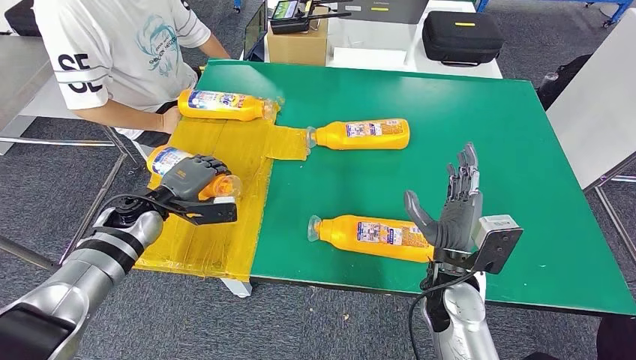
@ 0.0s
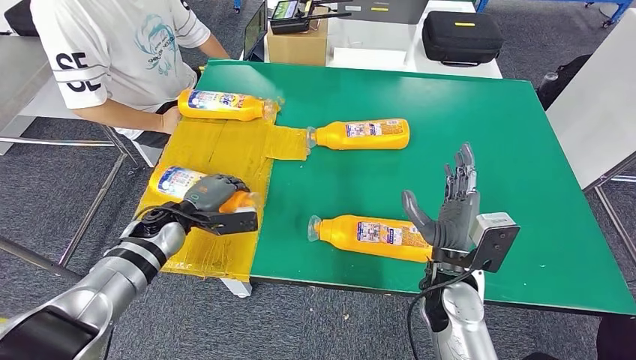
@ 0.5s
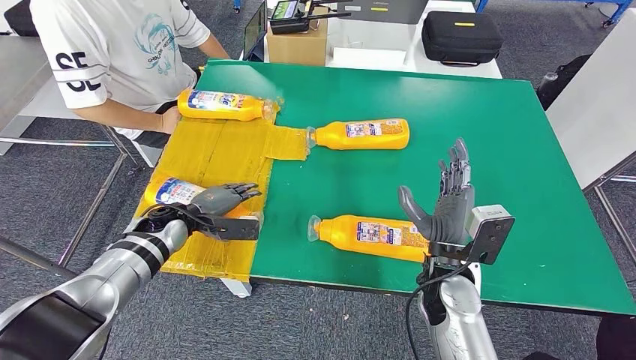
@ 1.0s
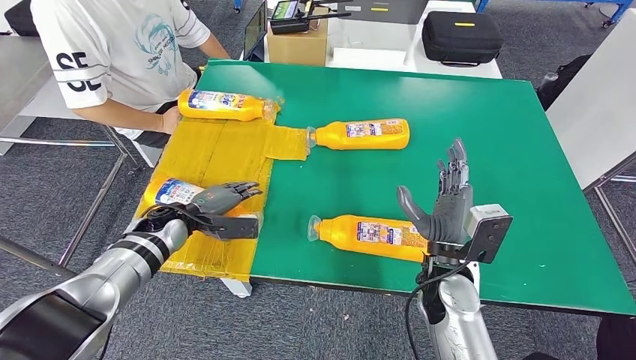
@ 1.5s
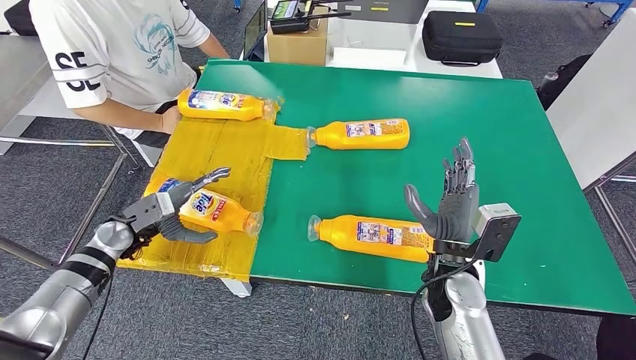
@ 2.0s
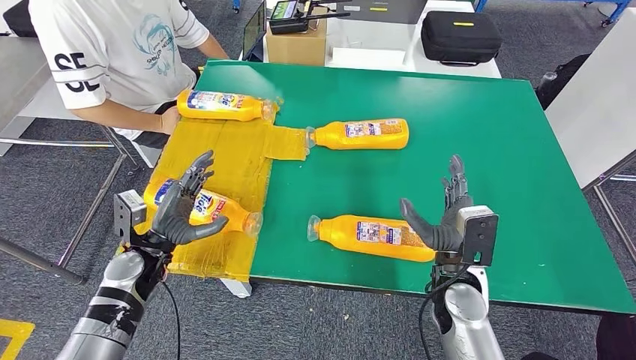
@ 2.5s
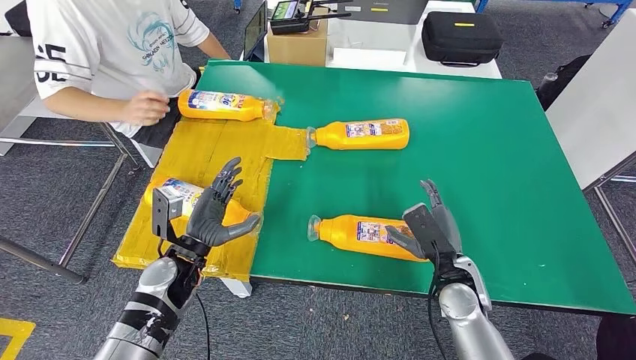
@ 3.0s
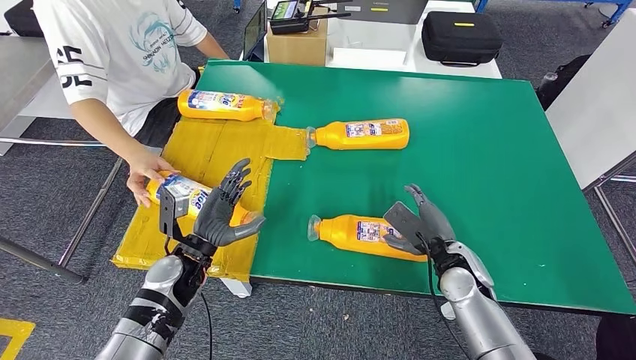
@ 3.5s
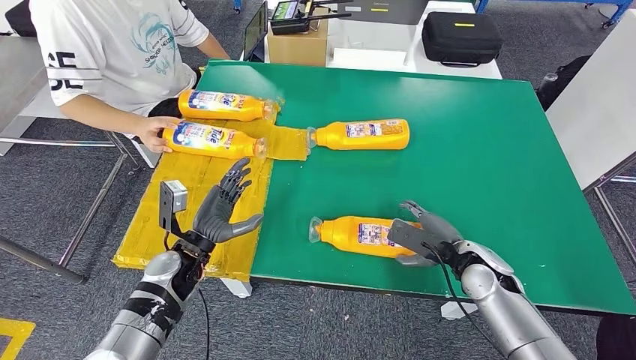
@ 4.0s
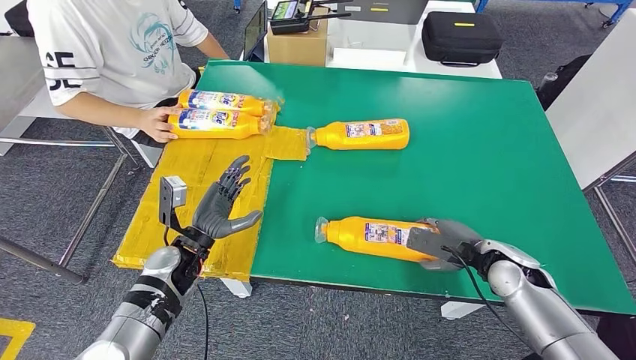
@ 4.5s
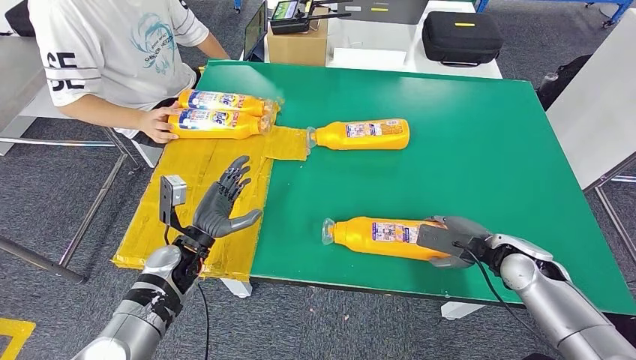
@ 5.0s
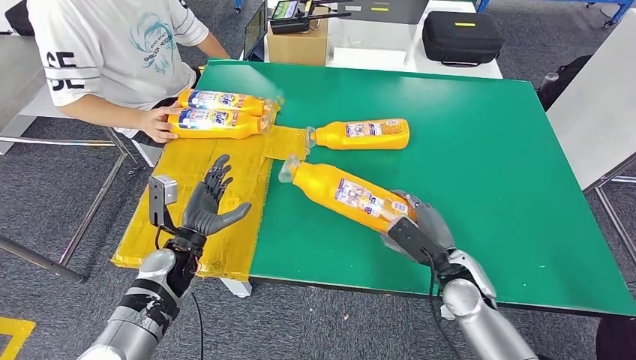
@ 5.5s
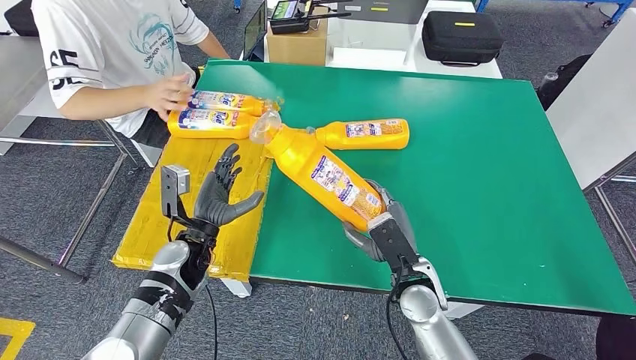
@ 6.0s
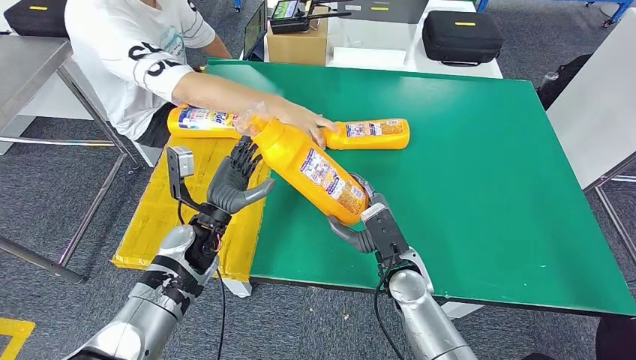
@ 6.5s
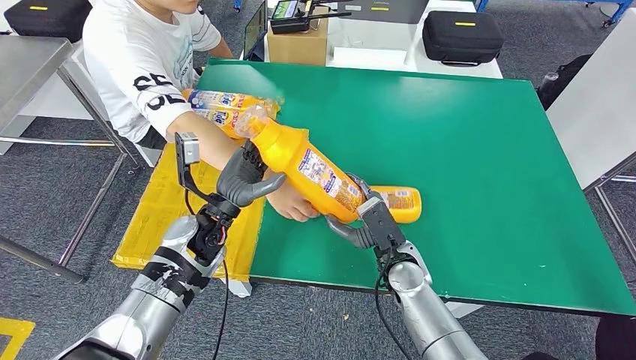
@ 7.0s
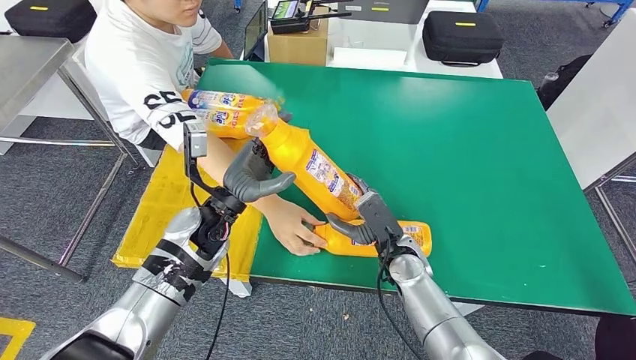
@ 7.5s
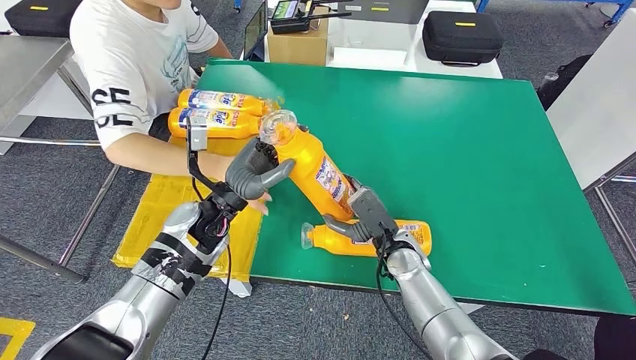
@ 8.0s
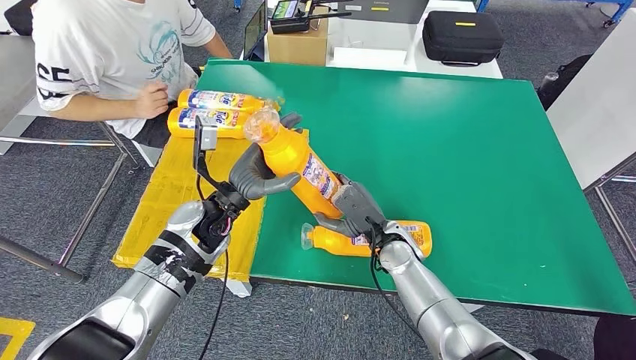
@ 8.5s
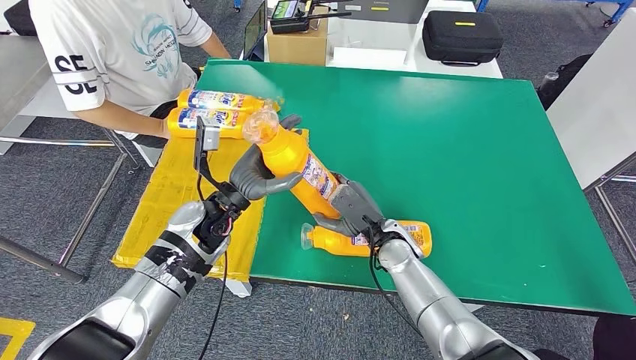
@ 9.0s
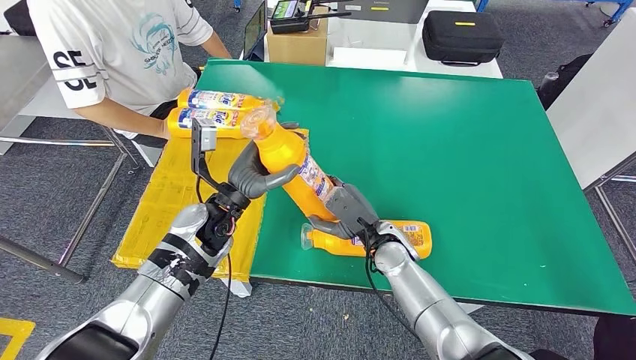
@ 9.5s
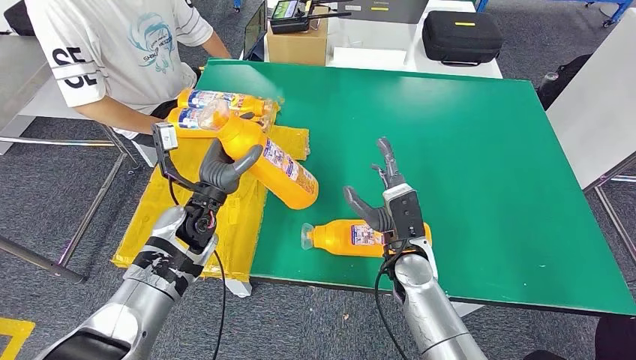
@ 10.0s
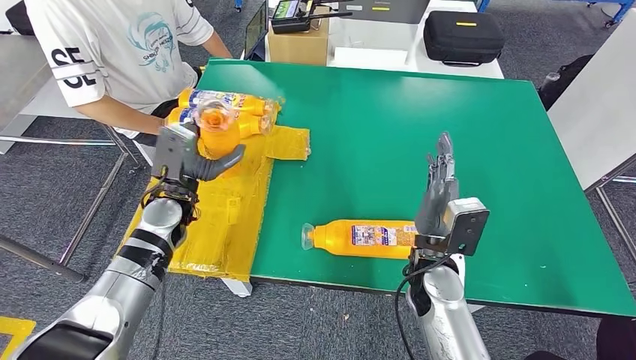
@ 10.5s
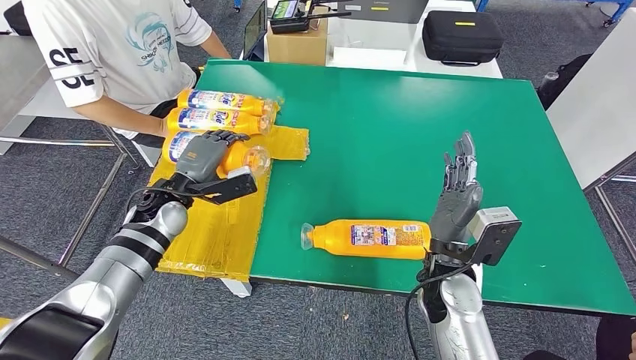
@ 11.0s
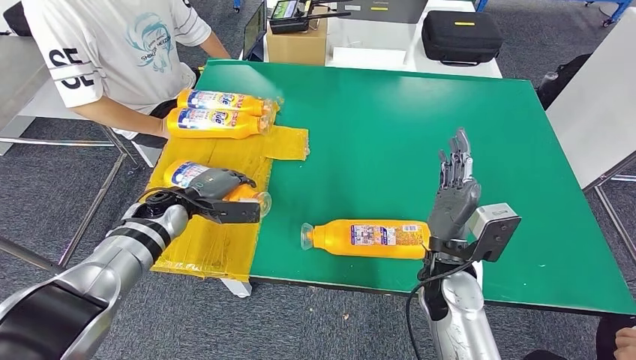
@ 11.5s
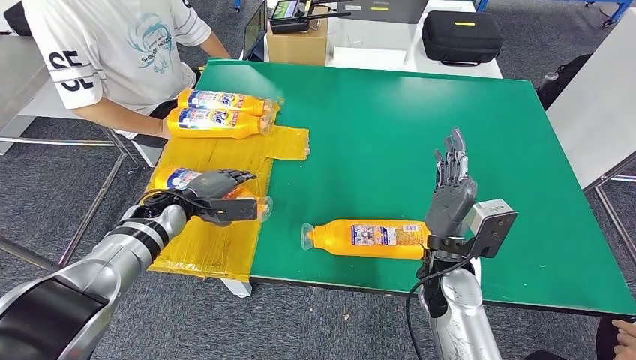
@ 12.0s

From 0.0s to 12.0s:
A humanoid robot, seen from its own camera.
Step, from 0.0s to 3.0s: Flip the fast-moving consumer goods bottle to the front side.
Step, from 3.5s to 6.0s: Pick up the fast-moving consumer goods bottle from the table.
From 0.0s to 2.0s: The left hand shifts by roughly 5 cm.
From 4.0s to 6.0s: The right hand travels to the left by some 15 cm.

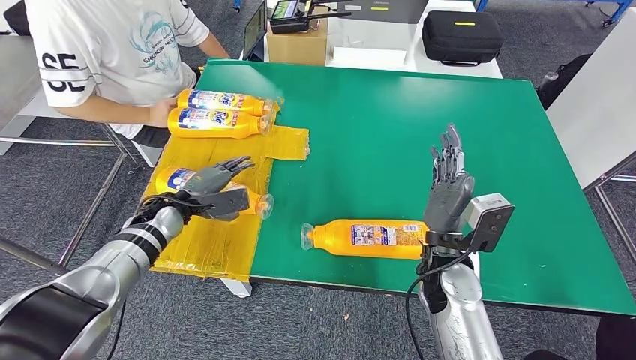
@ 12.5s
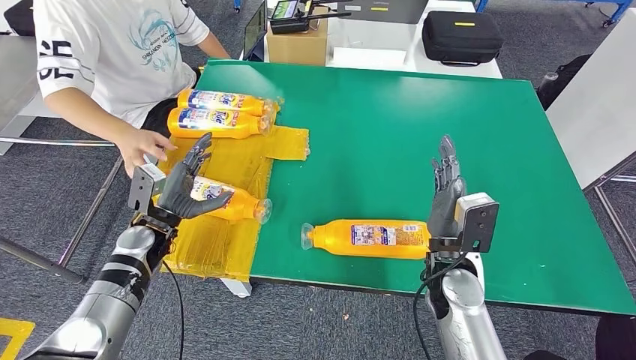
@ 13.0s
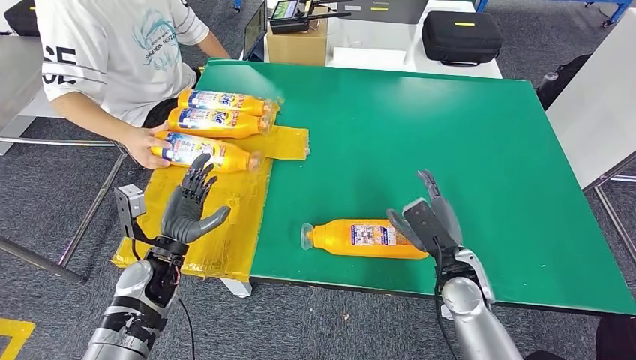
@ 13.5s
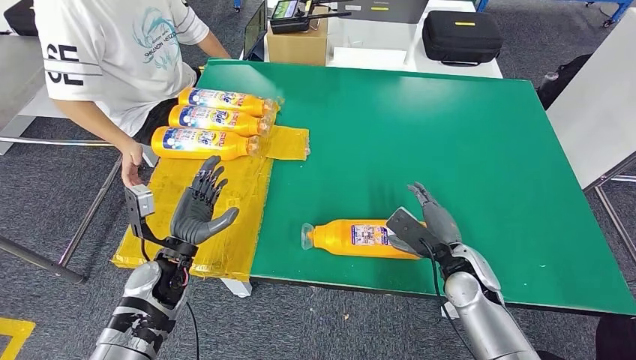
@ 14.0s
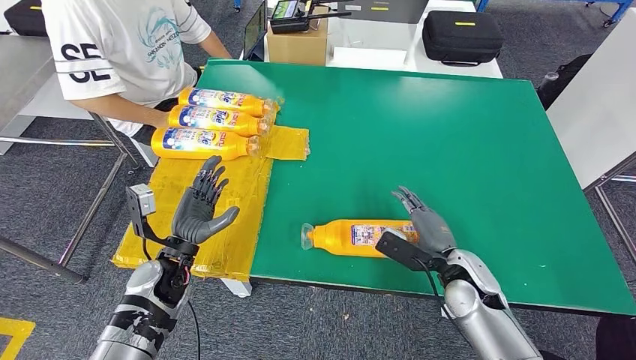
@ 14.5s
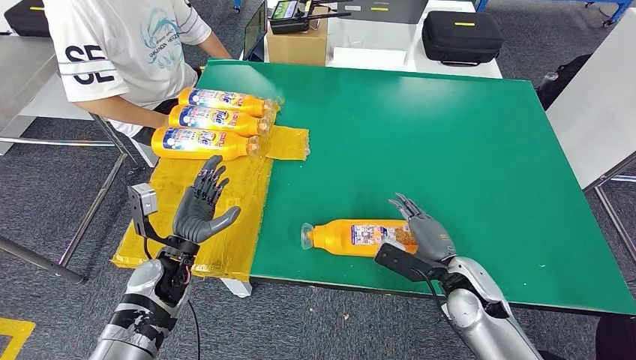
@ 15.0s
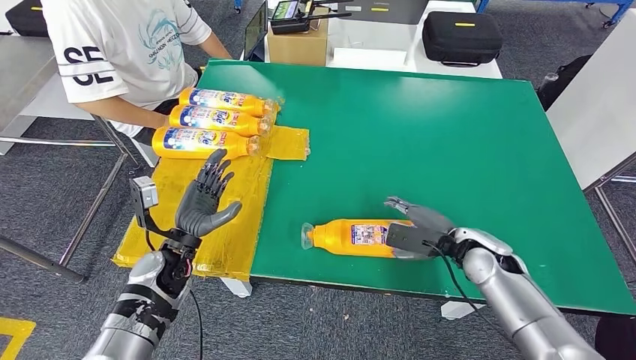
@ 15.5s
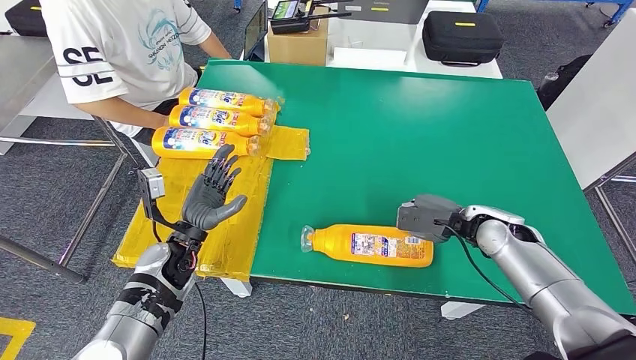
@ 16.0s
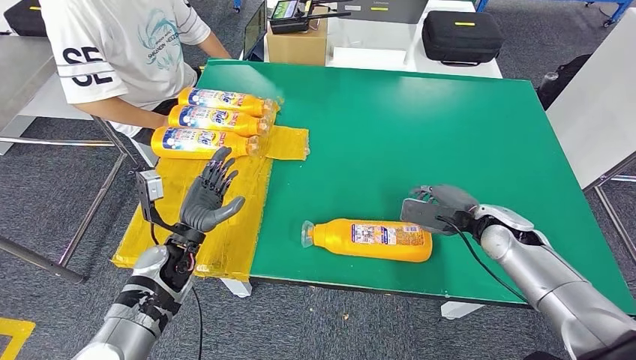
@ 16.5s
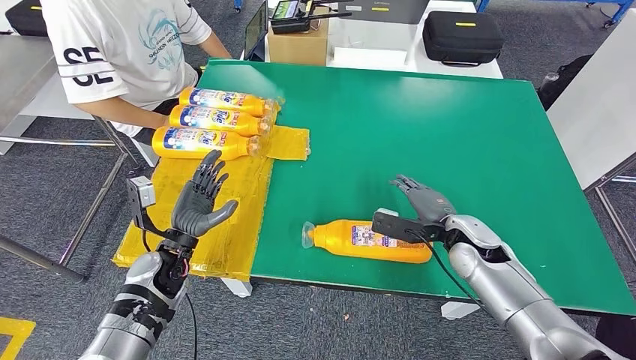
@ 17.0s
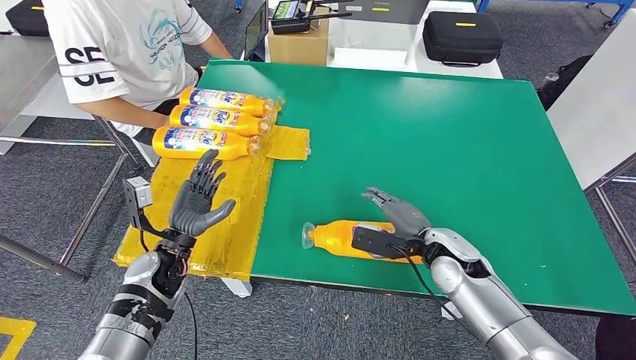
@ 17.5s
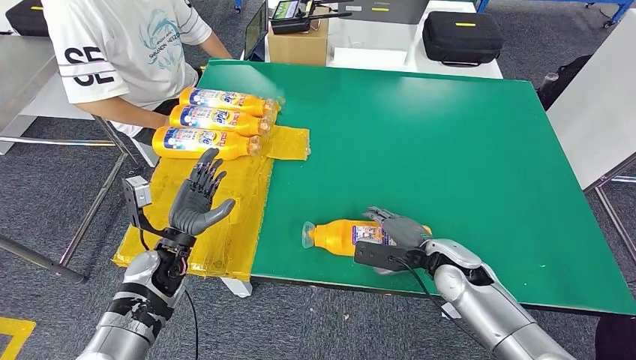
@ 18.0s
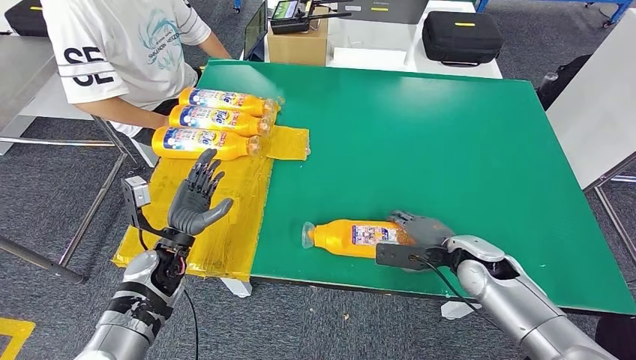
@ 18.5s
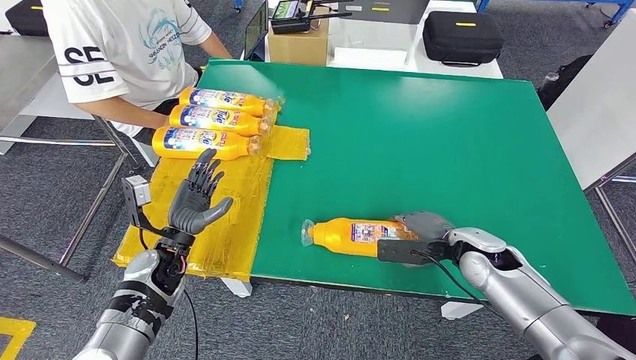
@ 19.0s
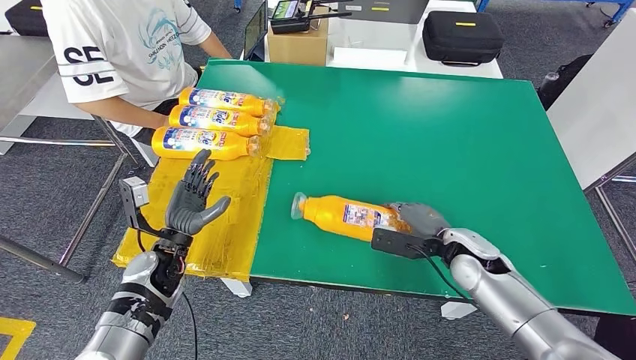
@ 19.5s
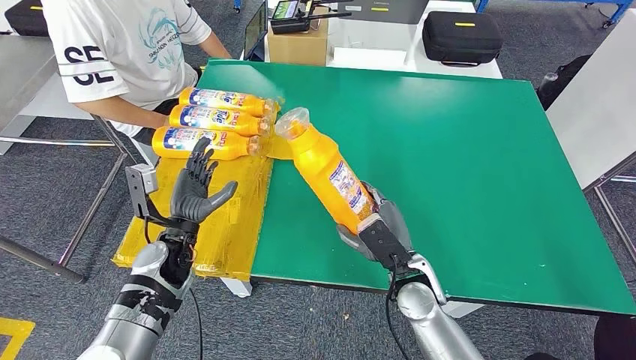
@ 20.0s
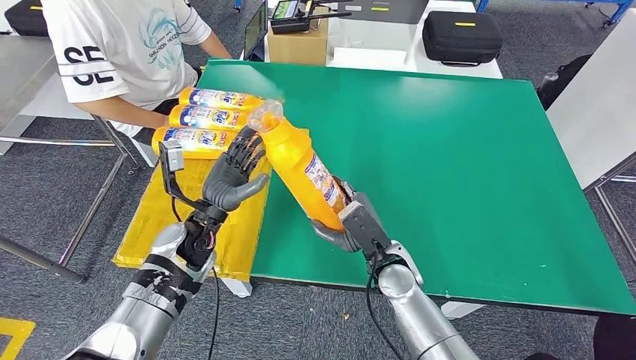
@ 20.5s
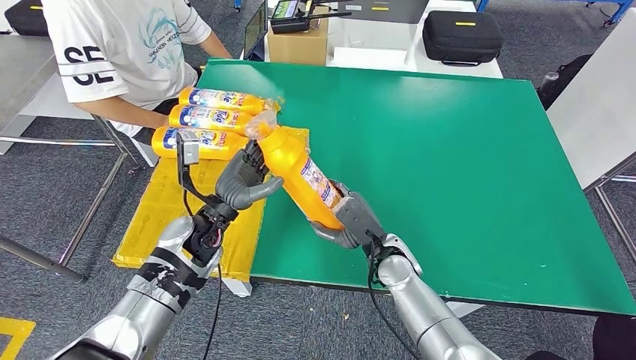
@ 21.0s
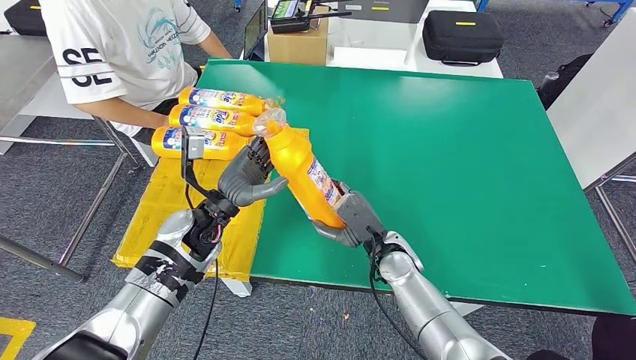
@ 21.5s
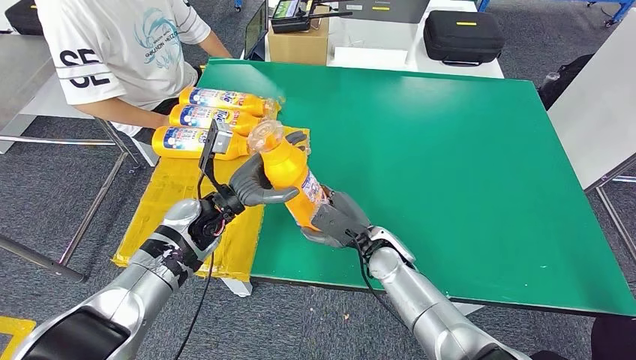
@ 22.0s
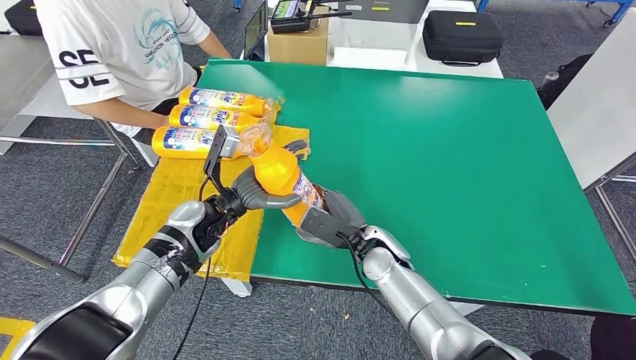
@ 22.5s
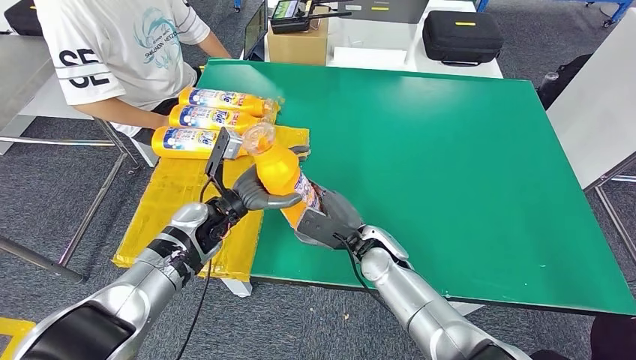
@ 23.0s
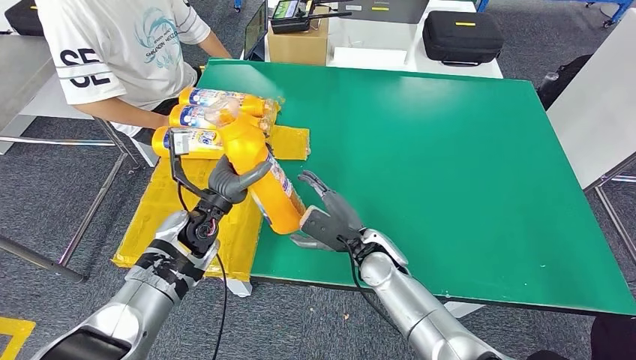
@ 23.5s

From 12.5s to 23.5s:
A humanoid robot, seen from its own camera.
Step, from 14.0s to 19.5s: Pick up the fast-moving consumer goods bottle from the table.
From 14.5s to 16.0s: The right hand is displaced forward and to the right by some 10 cm.
From 16.0s to 18.0s: The right hand heads to the left and backward, covering roughly 10 cm.
From 18.0s to 20.0s: The right hand heads to the left, covering about 10 cm.
From 20.0s to 21.5s: The left hand shifts roughly 10 cm to the right and upward; the right hand shifts approximately 5 cm forward.
From 21.5s to 23.5s: The hands make only small movements.
